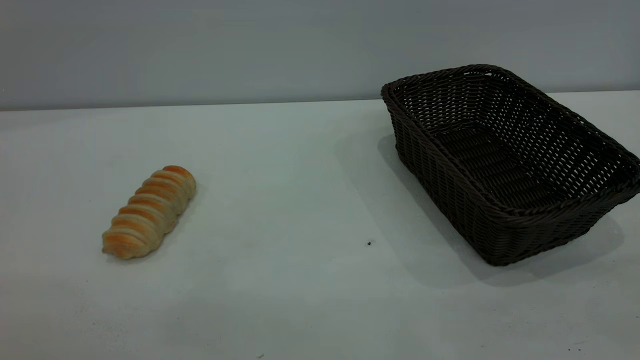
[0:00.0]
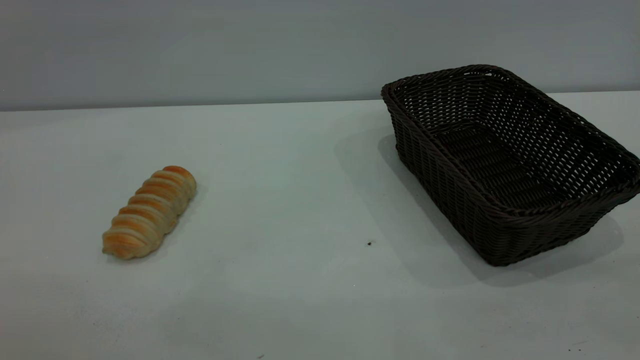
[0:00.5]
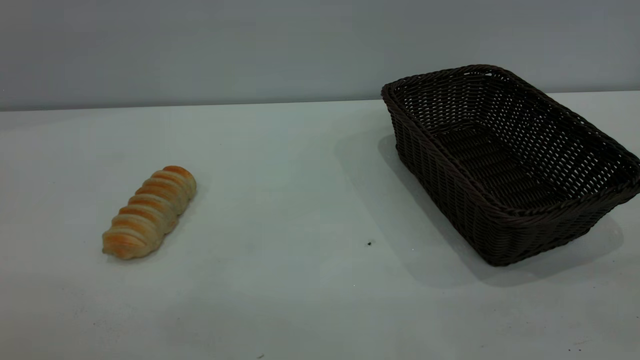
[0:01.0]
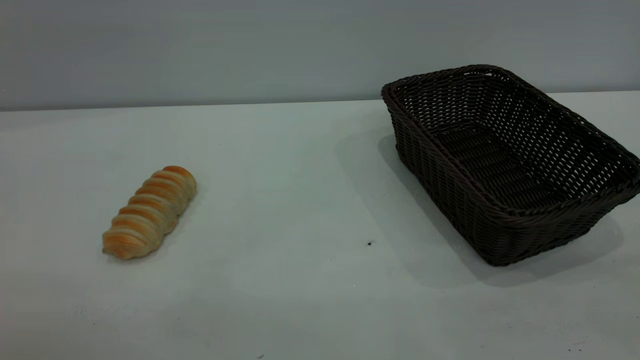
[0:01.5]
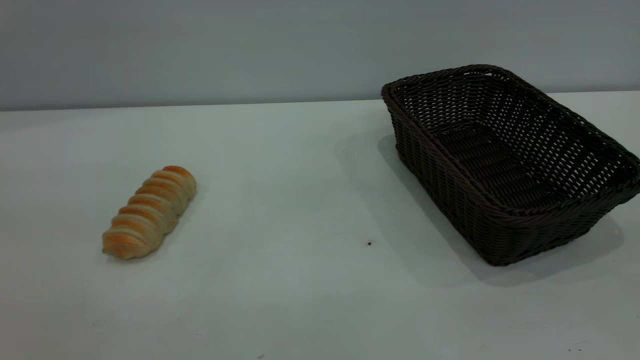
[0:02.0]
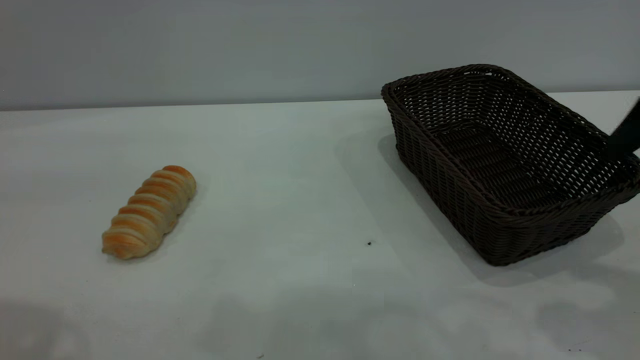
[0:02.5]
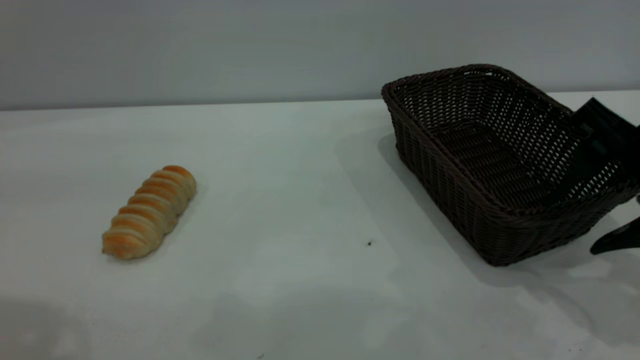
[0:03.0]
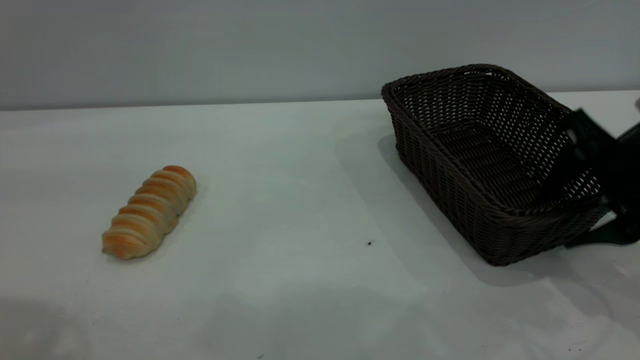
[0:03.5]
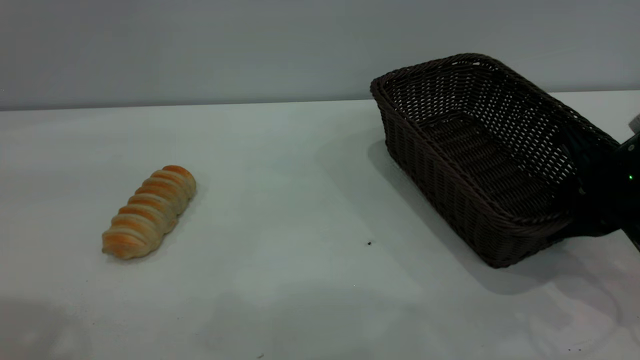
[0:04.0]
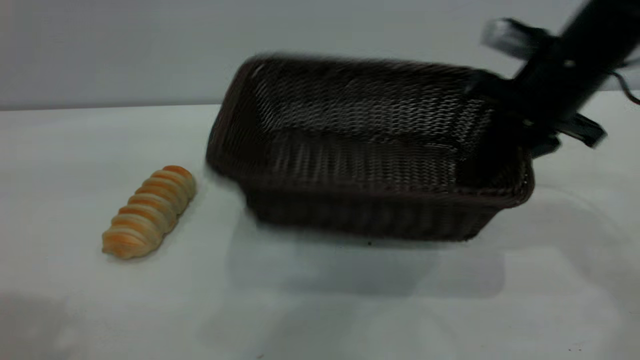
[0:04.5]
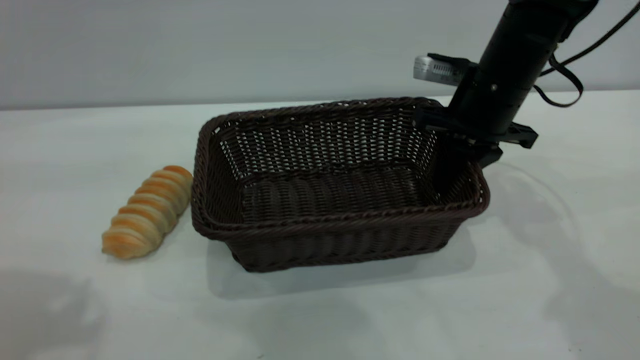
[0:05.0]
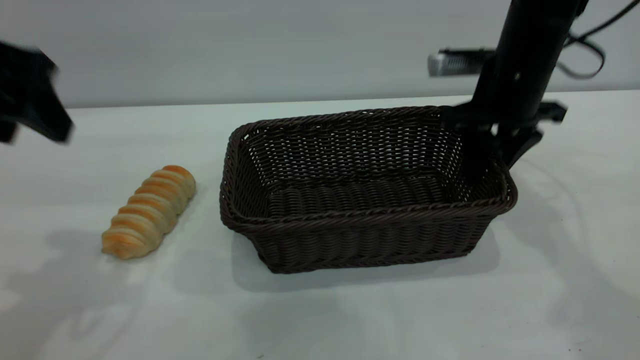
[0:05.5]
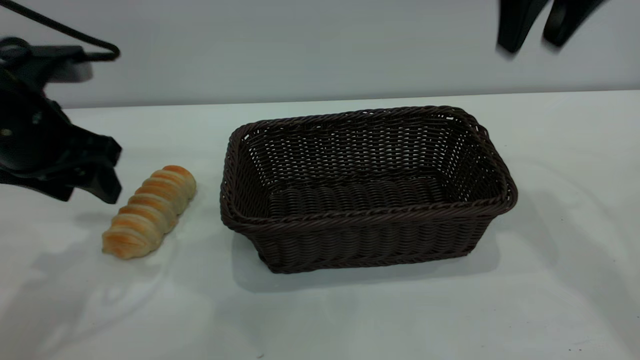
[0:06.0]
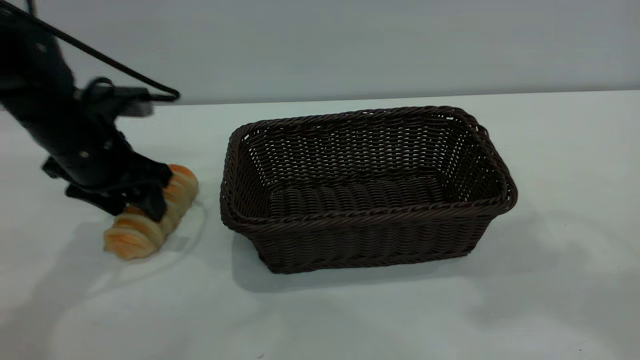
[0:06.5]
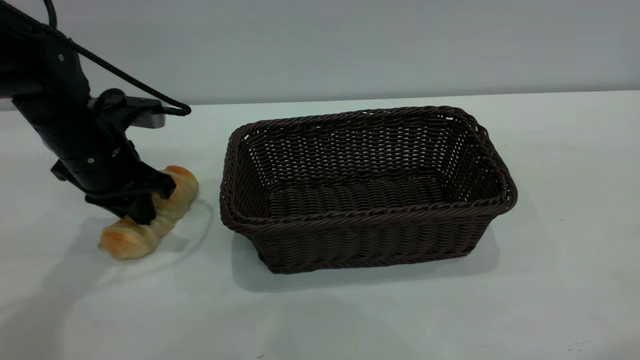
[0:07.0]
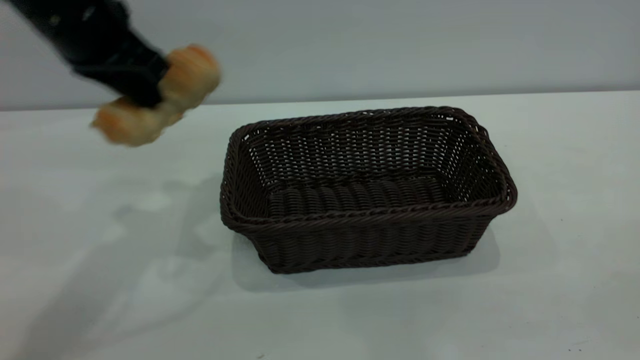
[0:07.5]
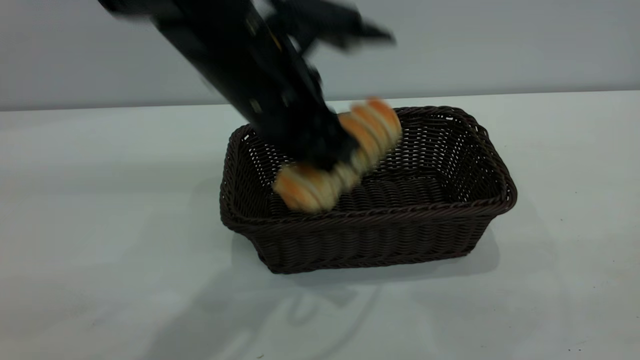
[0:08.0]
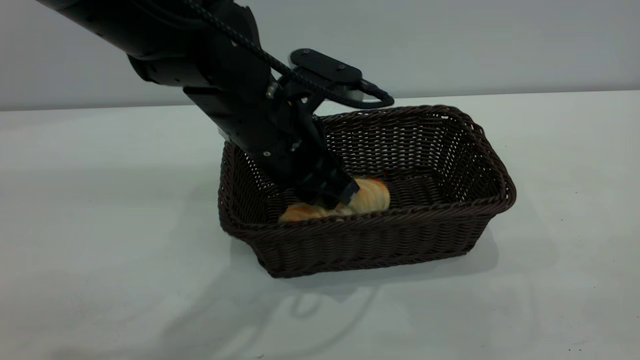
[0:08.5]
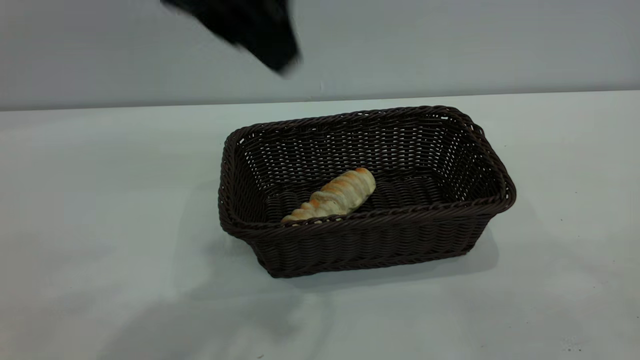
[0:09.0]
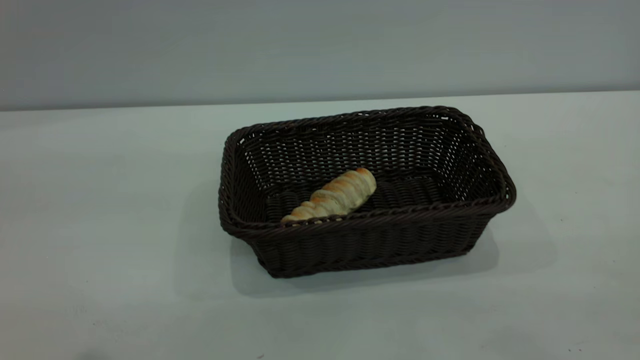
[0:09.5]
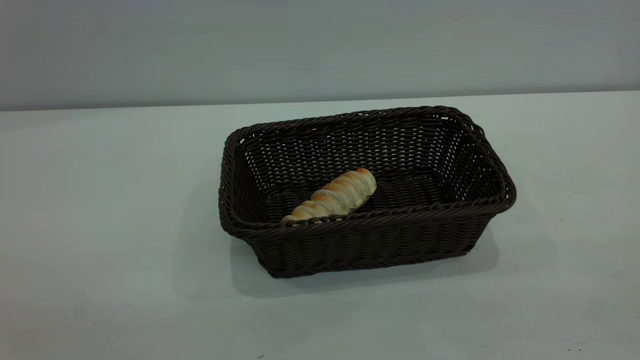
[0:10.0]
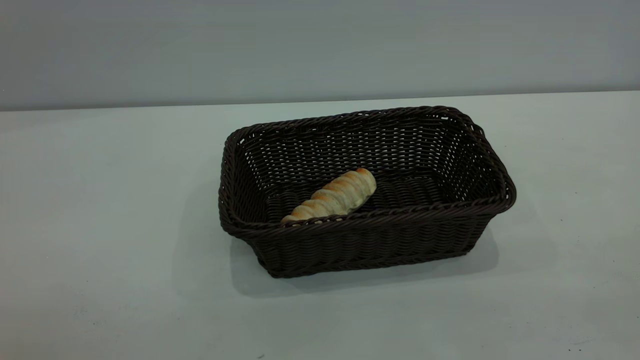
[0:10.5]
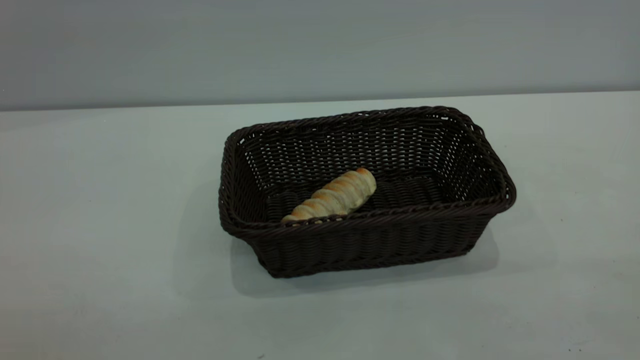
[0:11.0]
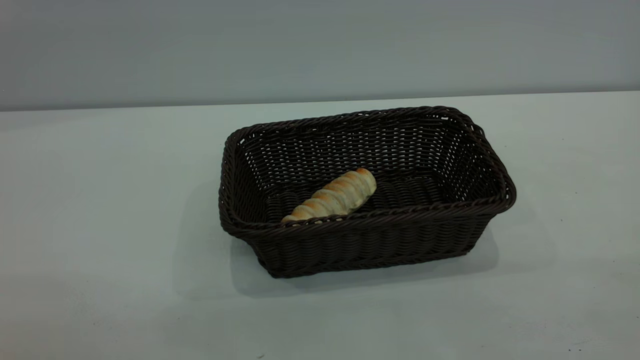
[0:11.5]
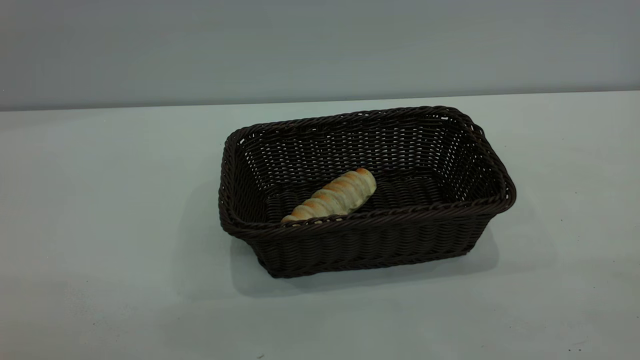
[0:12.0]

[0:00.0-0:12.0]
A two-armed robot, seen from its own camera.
Task of the whole recording: One hand grasps the black basket and places it in the middle of the table, while the other hand picks up the long bread and puts it into the black basket.
Step, 0:00.0 to 0:05.5: Move the basket to the center of view.
Step, 0:07.5 to 0:08.5: place the bread into the basket.
0:02.0 to 0:04.0: The left gripper travels forward by approximately 10 cm. The right gripper is displaced downward and forward by about 30 cm, and closes up.
0:04.0 to 0:06.0: The left gripper travels downward and forward by some 25 cm, while the right gripper swings up and down, some 20 cm each way, with 2 reversals, and opens its fingers.
0:06.0 to 0:08.0: The left gripper goes about 20 cm to the right, and closes up, while the right gripper is displaced backward by approximately 35 cm.
0:08.0 to 0:10.0: The left gripper travels backward, to the left and upward by some 40 cm, and opens its fingers.
